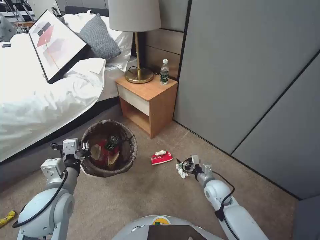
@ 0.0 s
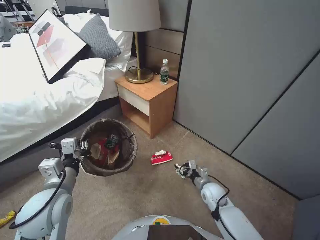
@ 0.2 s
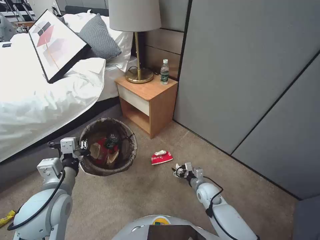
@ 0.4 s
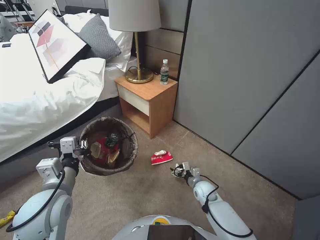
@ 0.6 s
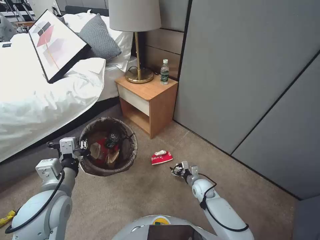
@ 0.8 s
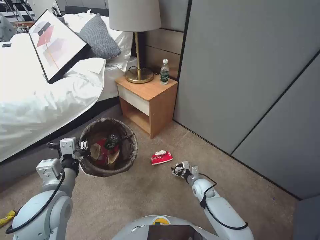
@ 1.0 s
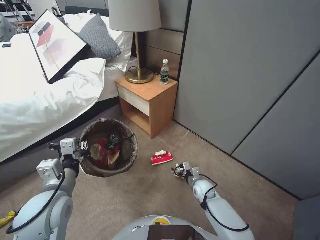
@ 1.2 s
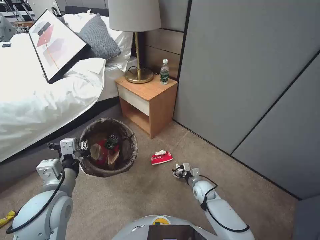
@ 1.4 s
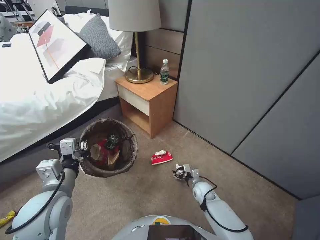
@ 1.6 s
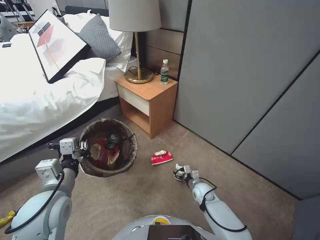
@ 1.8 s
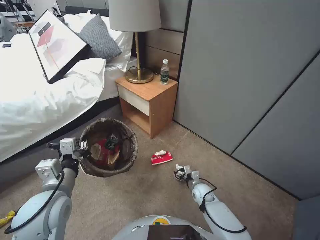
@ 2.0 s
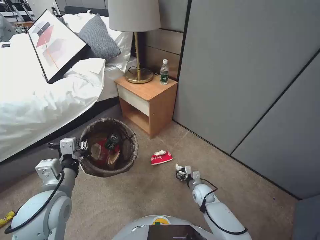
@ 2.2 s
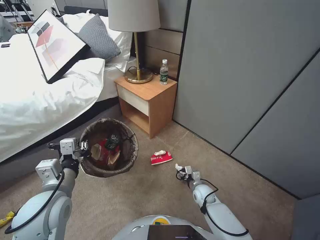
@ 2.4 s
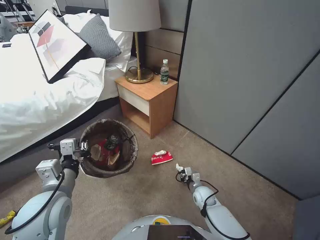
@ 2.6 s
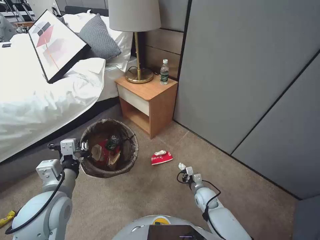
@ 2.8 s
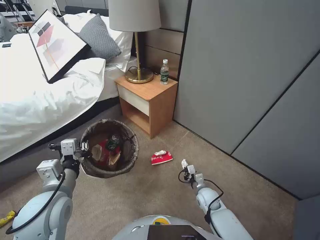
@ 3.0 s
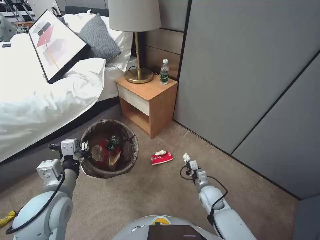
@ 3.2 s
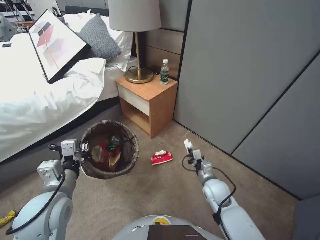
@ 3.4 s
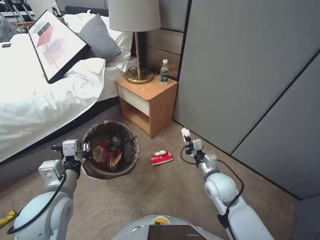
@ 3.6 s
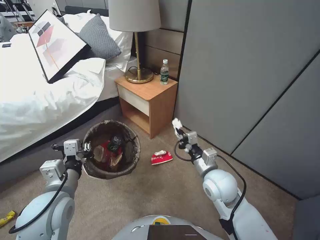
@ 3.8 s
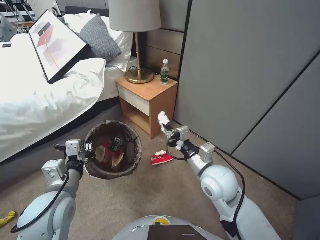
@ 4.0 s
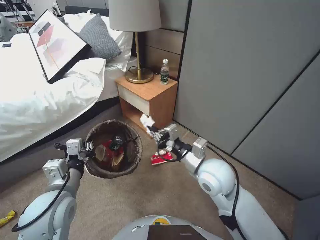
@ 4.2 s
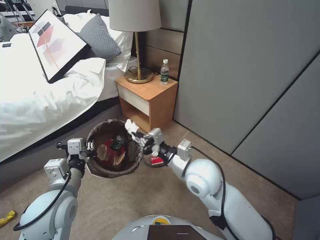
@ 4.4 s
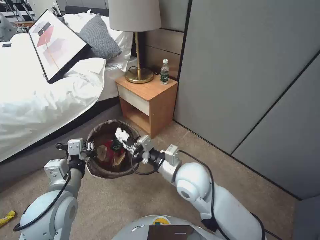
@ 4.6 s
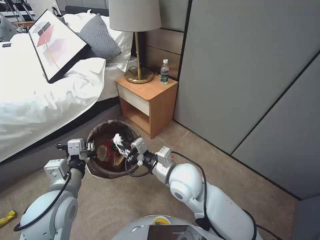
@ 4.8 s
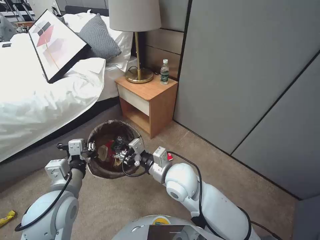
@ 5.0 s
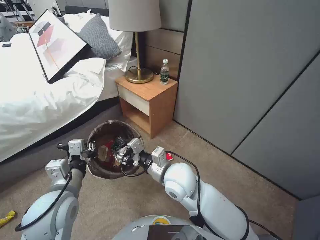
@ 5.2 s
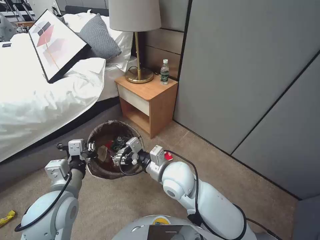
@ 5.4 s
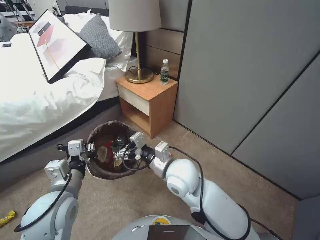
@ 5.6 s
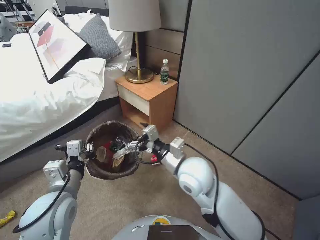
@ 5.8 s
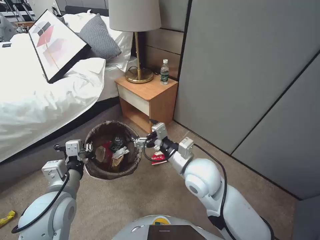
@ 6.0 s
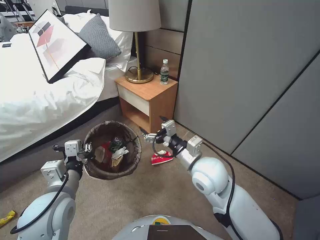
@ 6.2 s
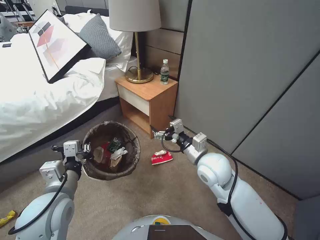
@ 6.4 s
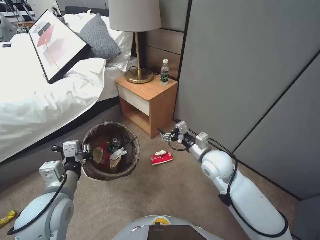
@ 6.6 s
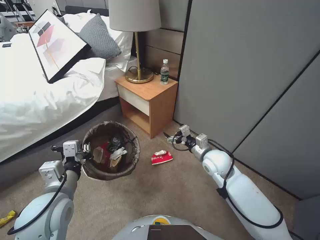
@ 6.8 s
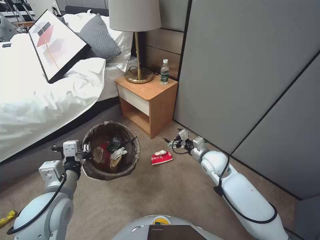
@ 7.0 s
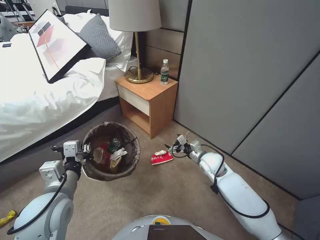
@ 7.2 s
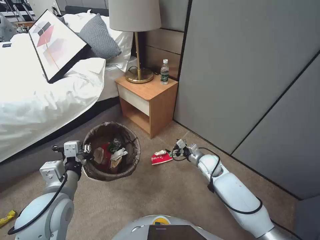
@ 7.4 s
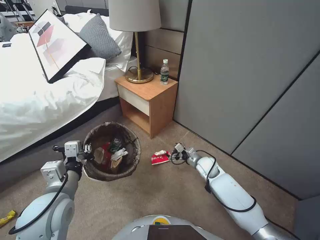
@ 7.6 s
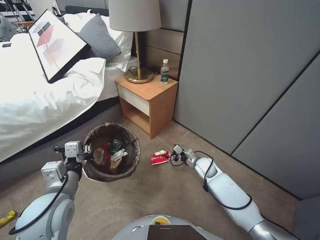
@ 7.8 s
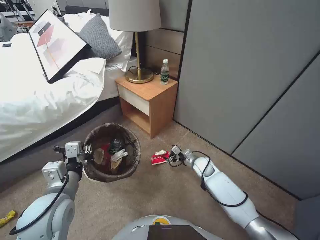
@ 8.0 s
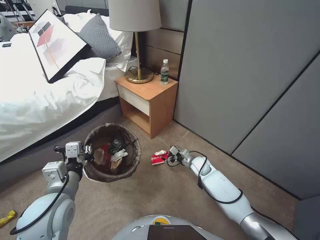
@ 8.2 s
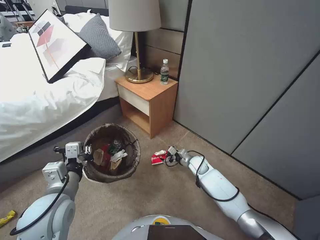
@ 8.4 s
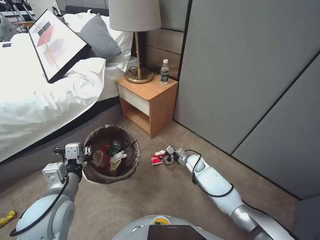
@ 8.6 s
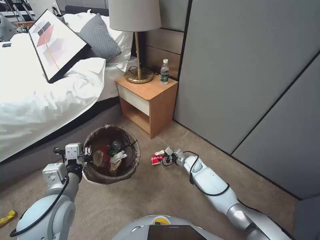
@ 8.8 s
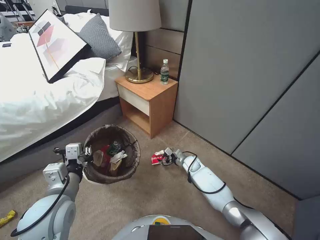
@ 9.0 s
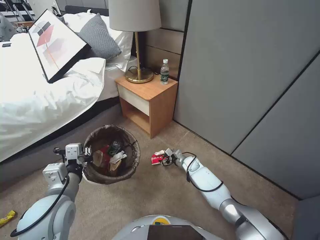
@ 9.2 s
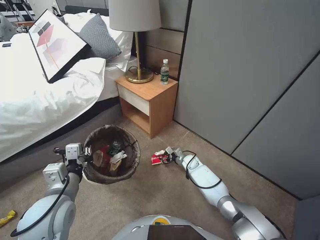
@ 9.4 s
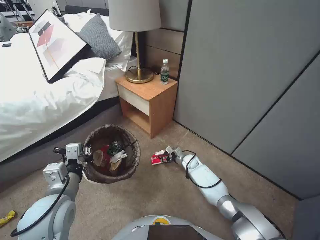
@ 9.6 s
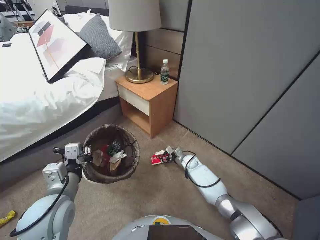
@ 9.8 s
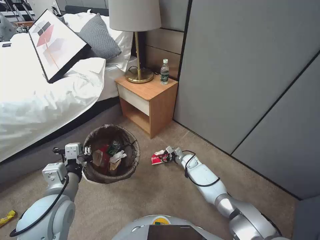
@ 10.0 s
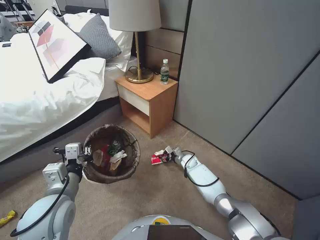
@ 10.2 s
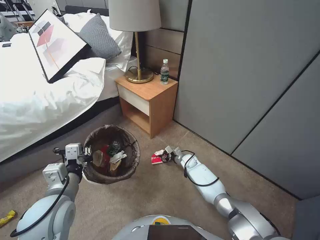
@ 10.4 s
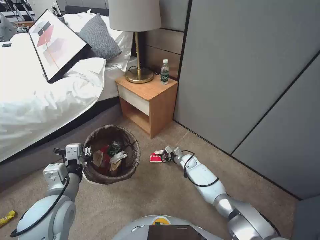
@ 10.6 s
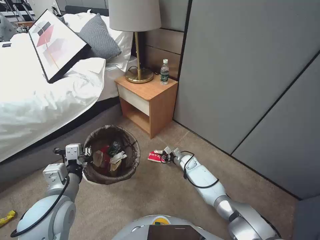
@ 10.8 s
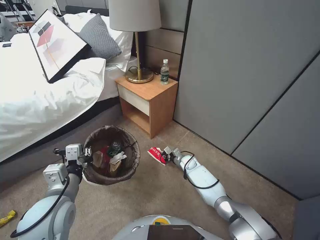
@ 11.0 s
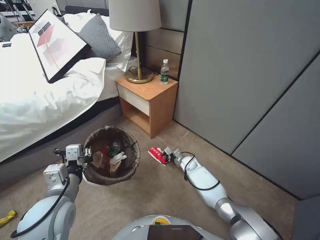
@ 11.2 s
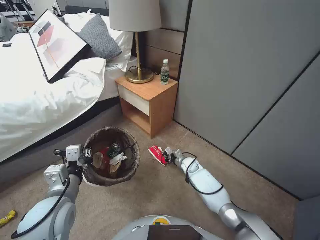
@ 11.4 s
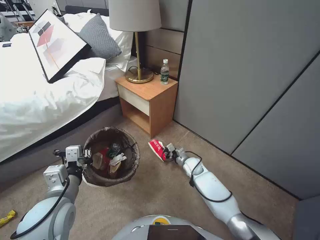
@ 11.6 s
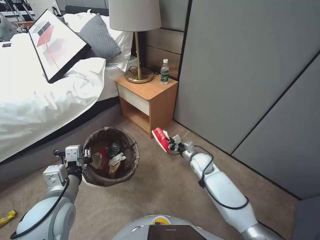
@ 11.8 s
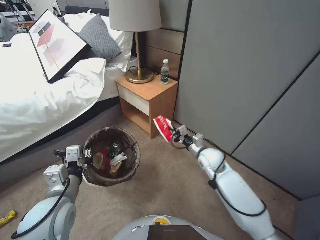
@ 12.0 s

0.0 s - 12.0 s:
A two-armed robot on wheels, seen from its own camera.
Task of the whole recording: Pick up the trash bin, then pick up the garbage from the floor and place it into the trash bin.
0.0 s - 1.6 s: The right gripper moves downward, approximately 10 cm.
1.6 s - 3.0 s: The right gripper closes up.
3.0 s - 4.4 s: The right gripper travels upward by roughly 30 cm.
4.4 s - 6.0 s: The right gripper travels to the left and back again, about 10 cm each way, and opens its fingers.
6.0 s - 7.6 s: The right gripper is displaced downward, to the right and forward by roughly 30 cm.
7.6 s - 9.0 s: The right gripper travels downward by approximately 10 cm.
9.0 s - 10.4 s: There are only small adjustments of the grippers.
10.4 s - 12.0 s: The right gripper shifts some 20 cm upward and backward, and closes its fingers.

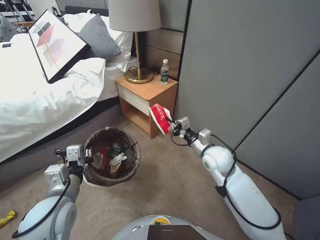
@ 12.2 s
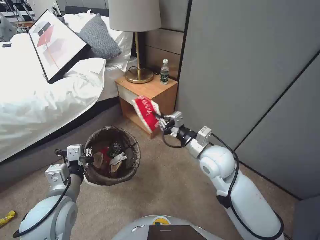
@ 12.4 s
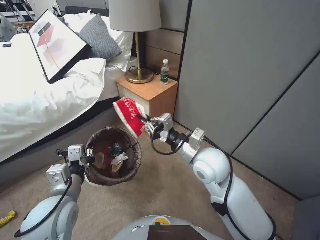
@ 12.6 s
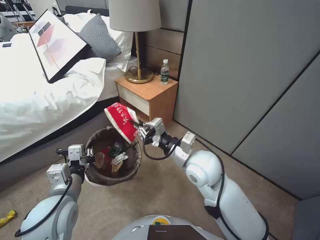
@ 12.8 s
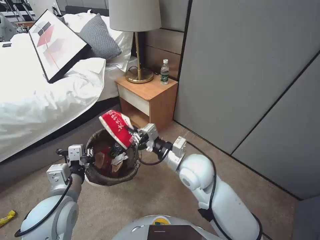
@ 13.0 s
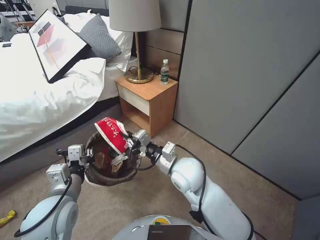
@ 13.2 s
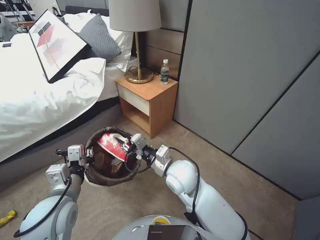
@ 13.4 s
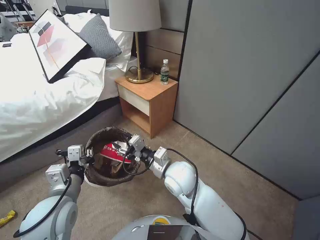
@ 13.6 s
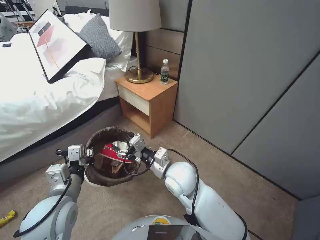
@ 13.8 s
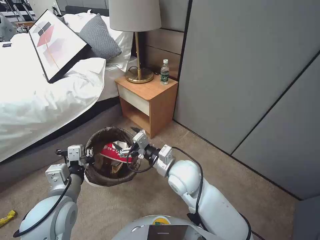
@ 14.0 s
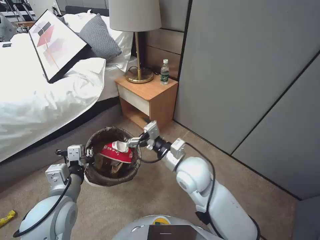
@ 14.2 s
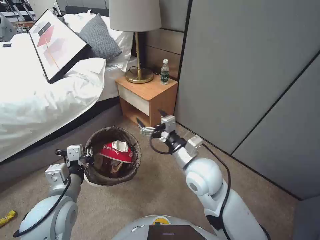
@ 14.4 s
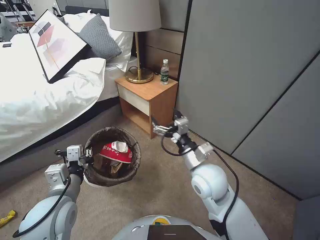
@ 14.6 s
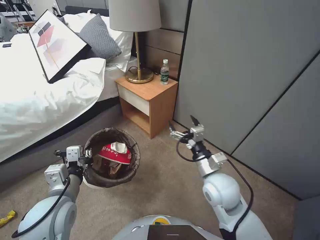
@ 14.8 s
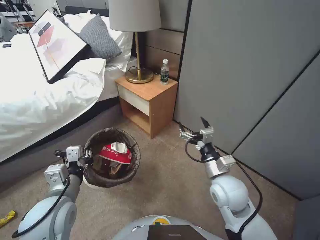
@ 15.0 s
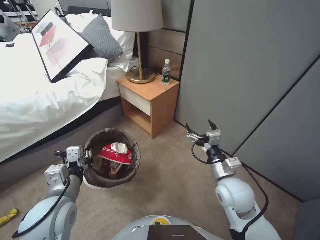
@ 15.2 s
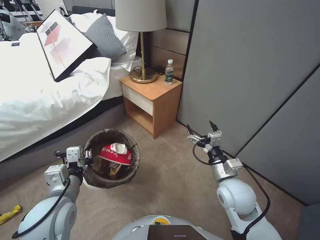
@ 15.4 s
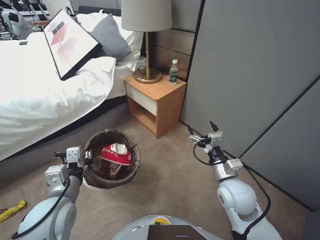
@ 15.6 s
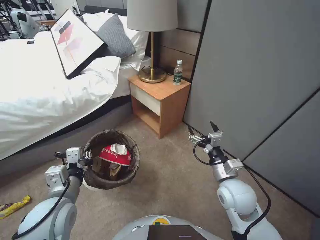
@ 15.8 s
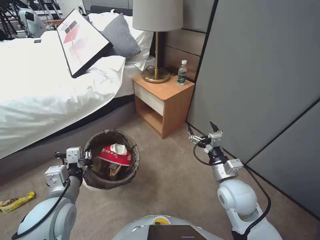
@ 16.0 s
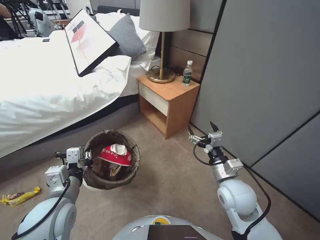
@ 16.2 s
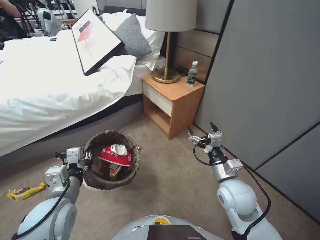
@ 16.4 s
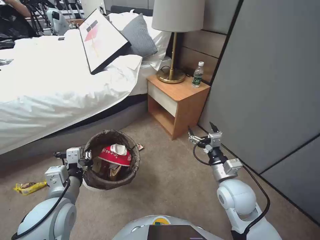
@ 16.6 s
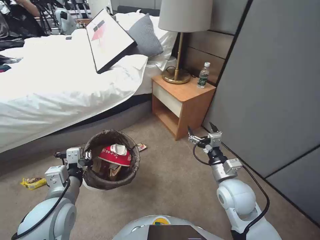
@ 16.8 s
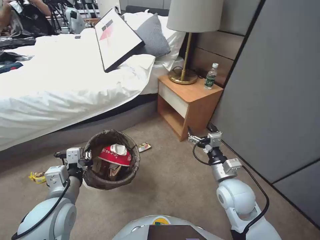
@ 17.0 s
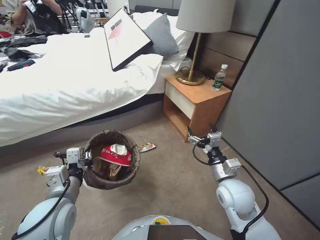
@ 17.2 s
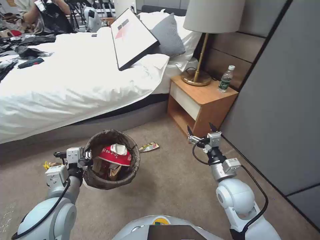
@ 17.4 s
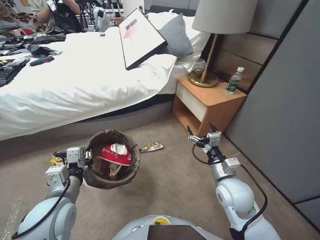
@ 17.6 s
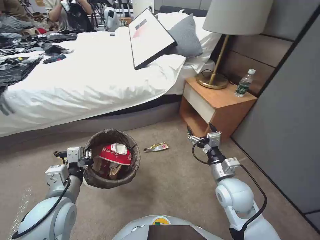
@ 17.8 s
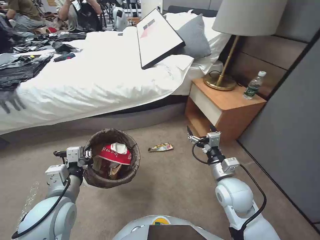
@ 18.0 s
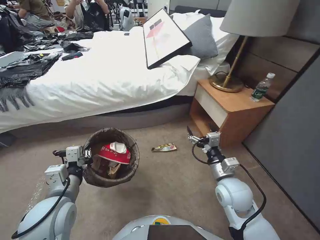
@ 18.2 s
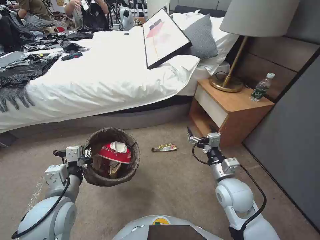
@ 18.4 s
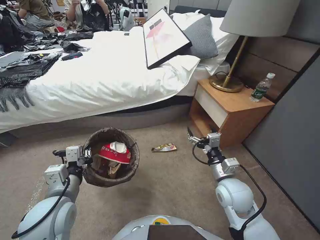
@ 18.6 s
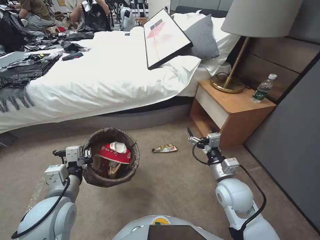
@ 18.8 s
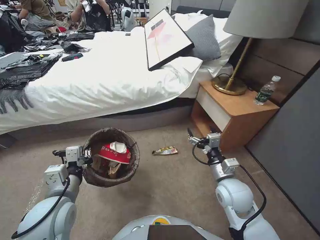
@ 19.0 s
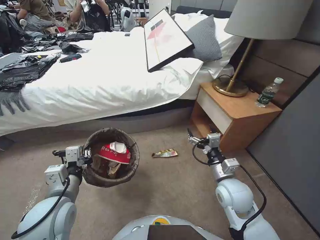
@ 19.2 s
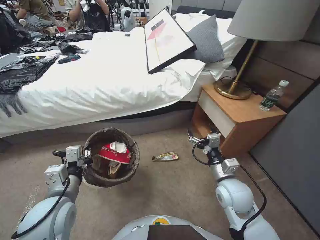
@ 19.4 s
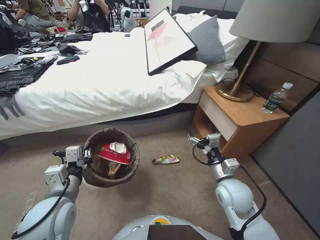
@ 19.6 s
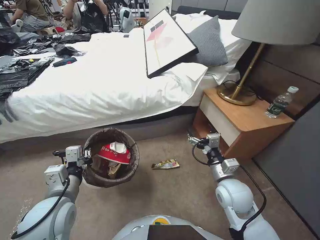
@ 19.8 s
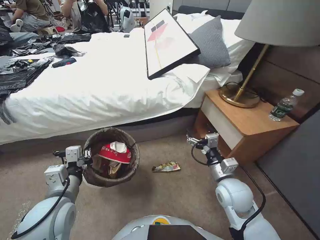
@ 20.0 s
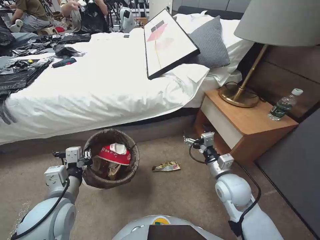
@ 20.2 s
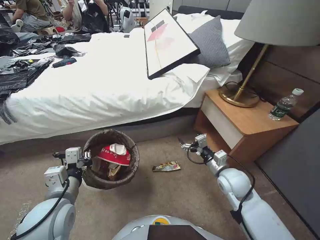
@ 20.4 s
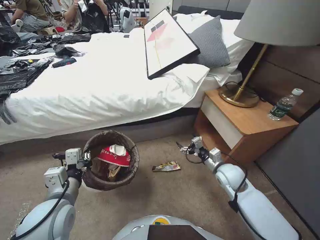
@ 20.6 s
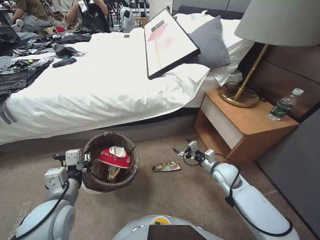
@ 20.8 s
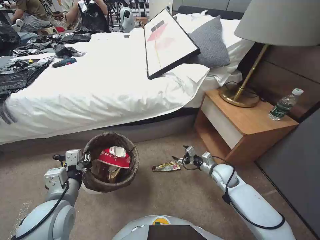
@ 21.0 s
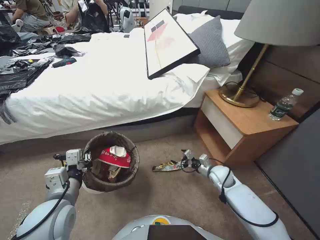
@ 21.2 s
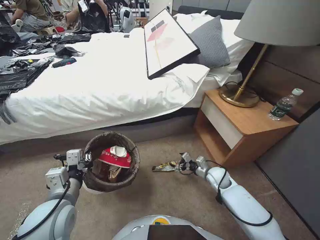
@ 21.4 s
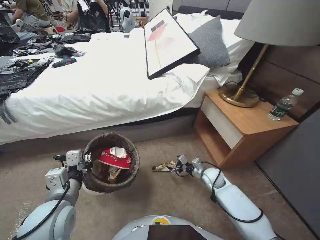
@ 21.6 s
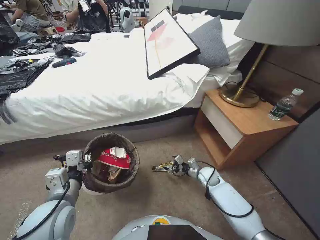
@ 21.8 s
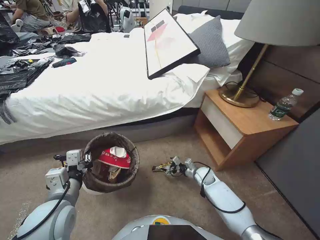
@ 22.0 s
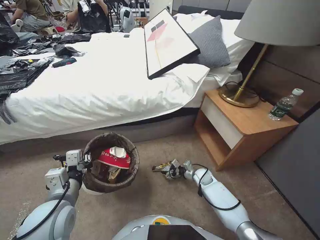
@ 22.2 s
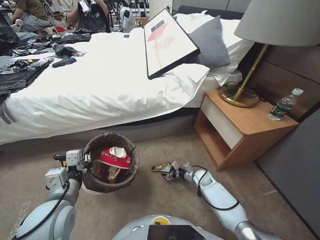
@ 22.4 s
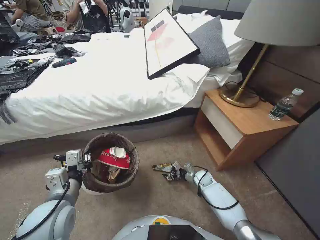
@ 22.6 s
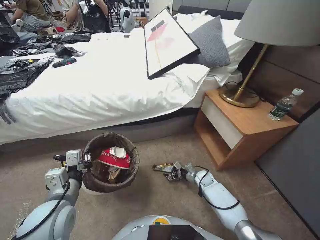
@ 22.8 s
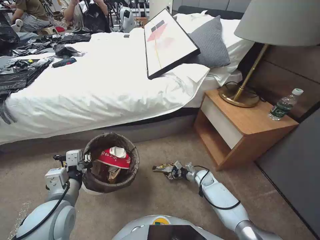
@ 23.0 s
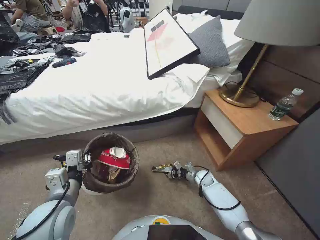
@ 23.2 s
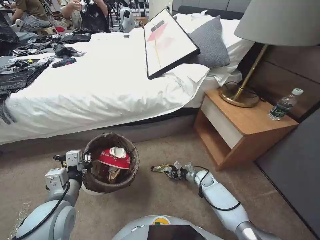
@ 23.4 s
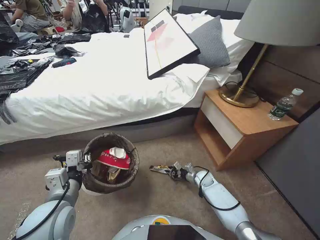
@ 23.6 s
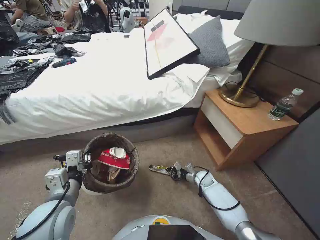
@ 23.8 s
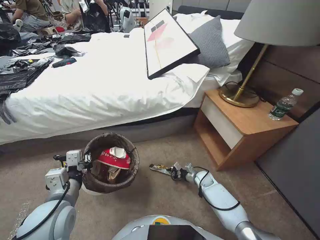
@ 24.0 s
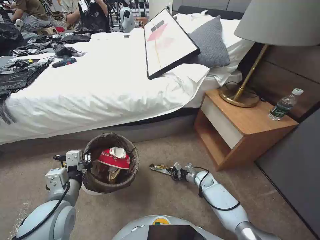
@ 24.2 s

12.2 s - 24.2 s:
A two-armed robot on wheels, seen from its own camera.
Task of the whole recording: Pick up the trash bin, then pick up the garbage from the floor and place it into the trash bin.
12.2 s - 13.8 s: The right gripper travels to the left and backward by about 20 cm, and opens.
13.8 s - 15.2 s: The right gripper moves to the right, about 15 cm, and opens its fingers.
19.8 s - 21.2 s: The right gripper moves downward, forward and to the right, approximately 20 cm.
21.2 s - 22.6 s: The right gripper heads downward, covering approximately 15 cm.
22.6 s - 24.2 s: The right gripper closes its fingers.
